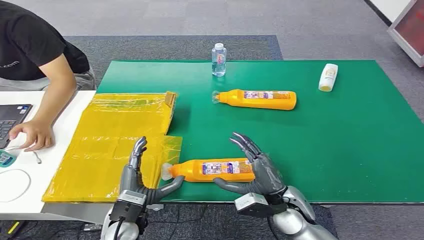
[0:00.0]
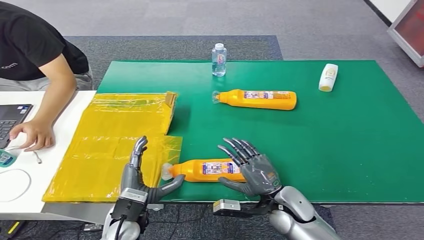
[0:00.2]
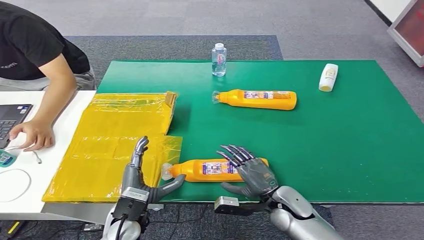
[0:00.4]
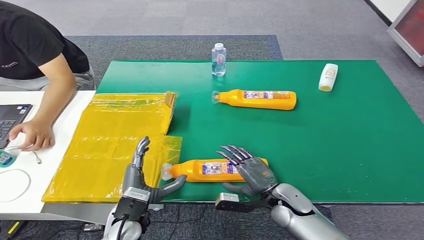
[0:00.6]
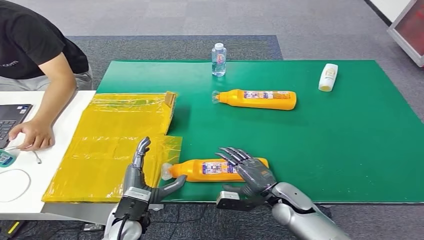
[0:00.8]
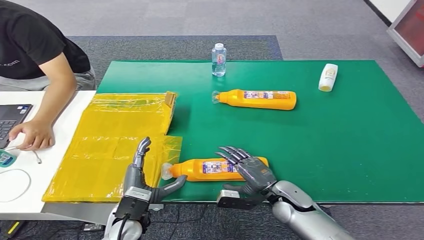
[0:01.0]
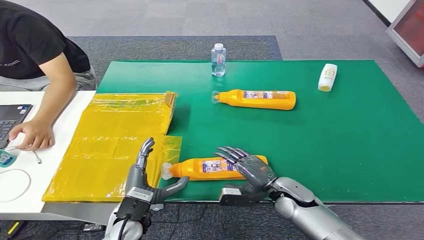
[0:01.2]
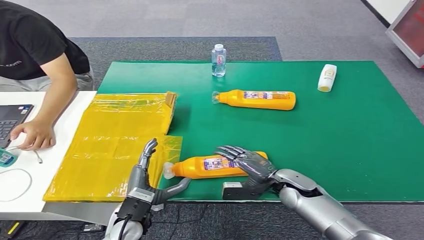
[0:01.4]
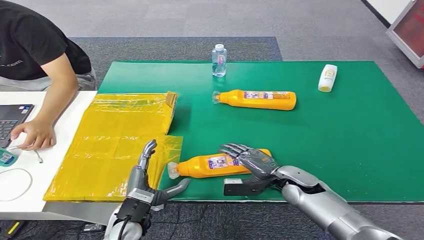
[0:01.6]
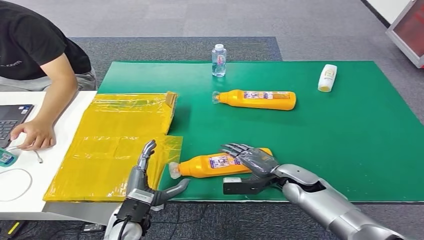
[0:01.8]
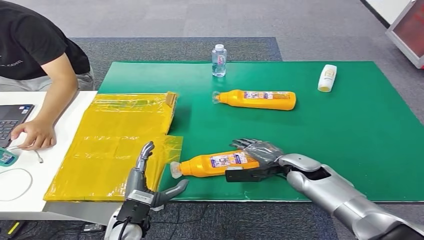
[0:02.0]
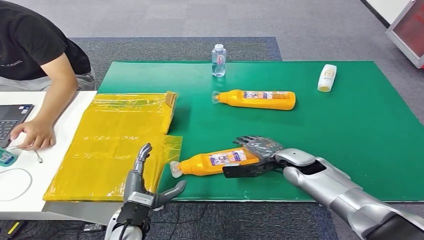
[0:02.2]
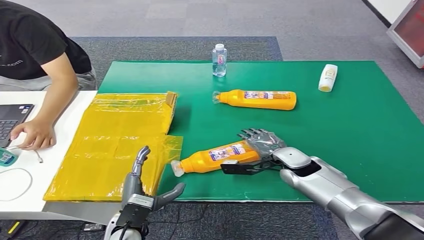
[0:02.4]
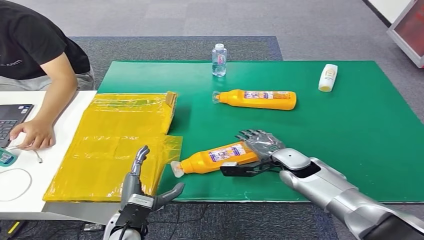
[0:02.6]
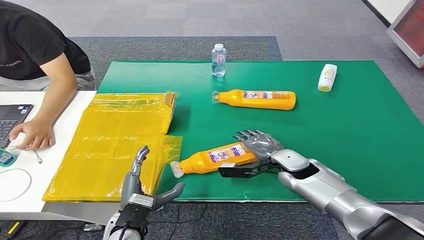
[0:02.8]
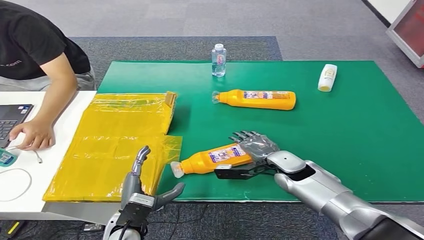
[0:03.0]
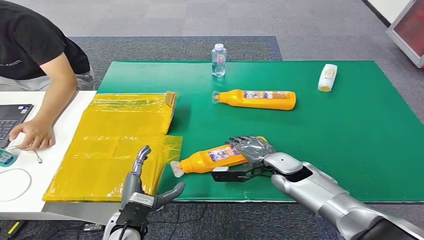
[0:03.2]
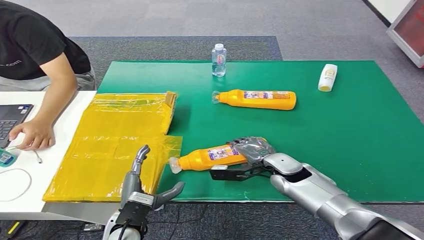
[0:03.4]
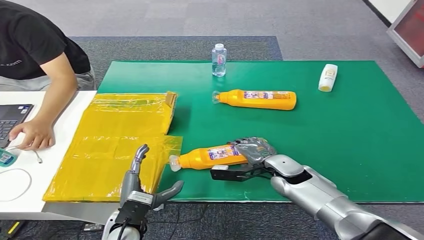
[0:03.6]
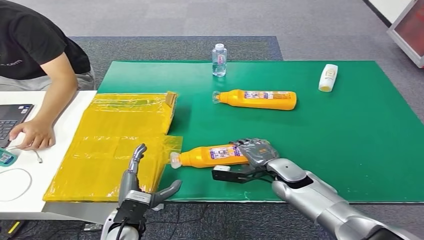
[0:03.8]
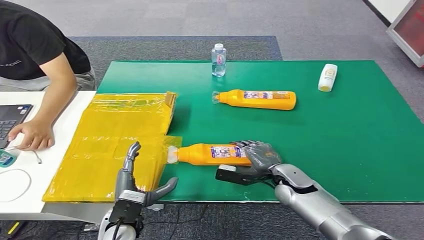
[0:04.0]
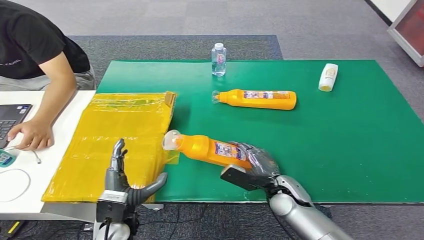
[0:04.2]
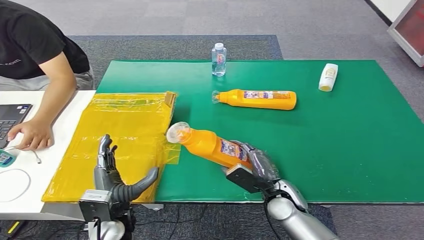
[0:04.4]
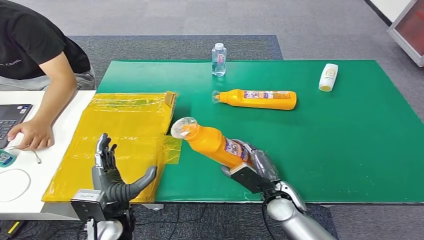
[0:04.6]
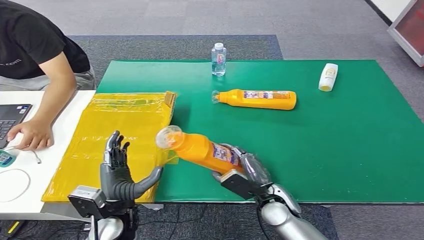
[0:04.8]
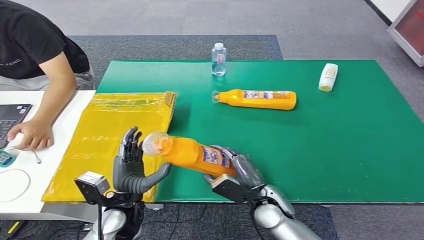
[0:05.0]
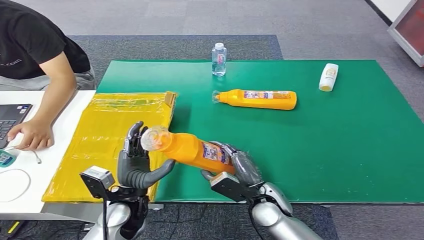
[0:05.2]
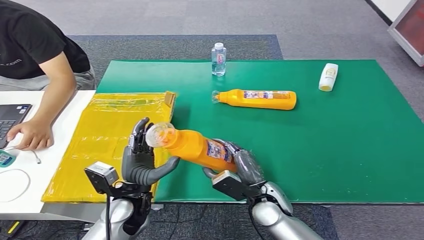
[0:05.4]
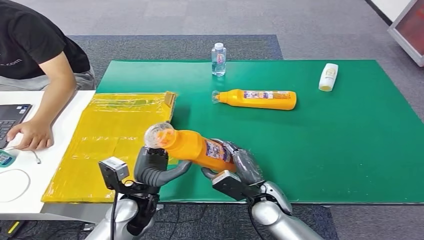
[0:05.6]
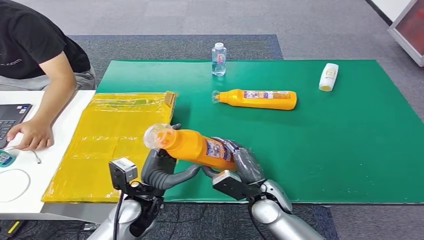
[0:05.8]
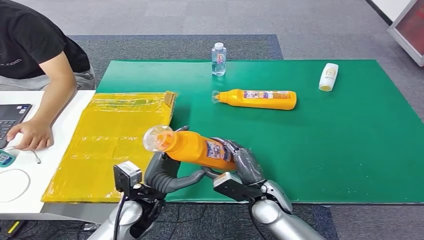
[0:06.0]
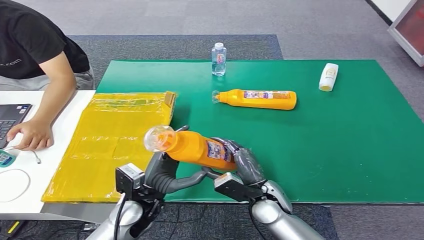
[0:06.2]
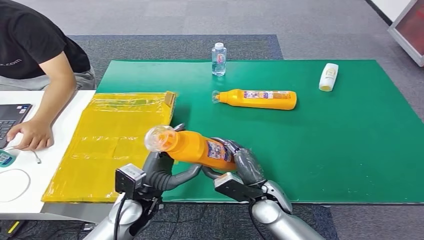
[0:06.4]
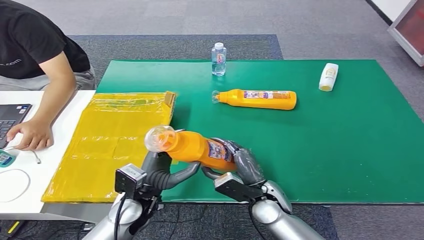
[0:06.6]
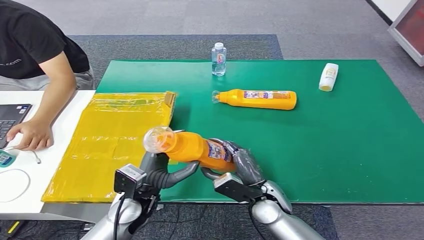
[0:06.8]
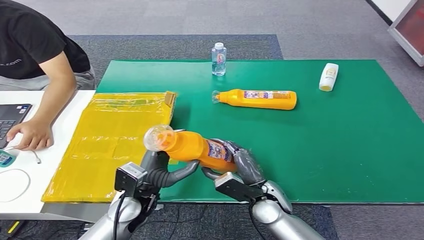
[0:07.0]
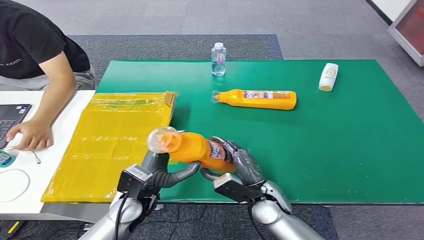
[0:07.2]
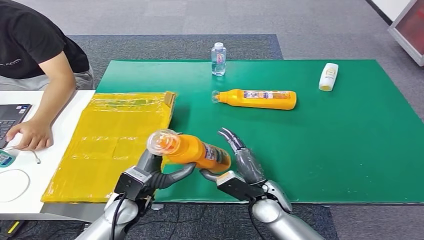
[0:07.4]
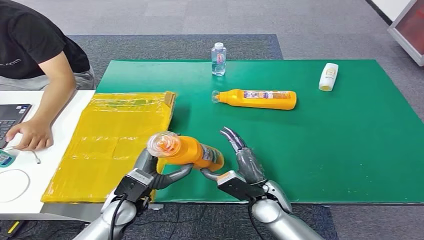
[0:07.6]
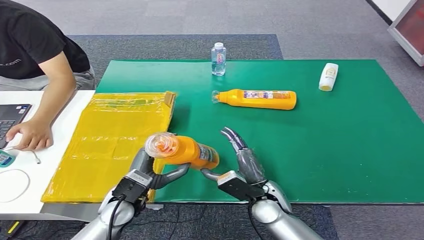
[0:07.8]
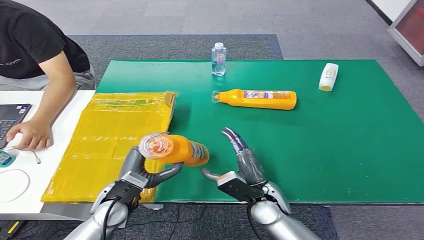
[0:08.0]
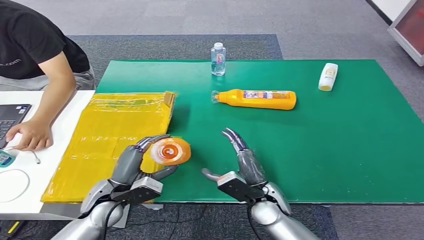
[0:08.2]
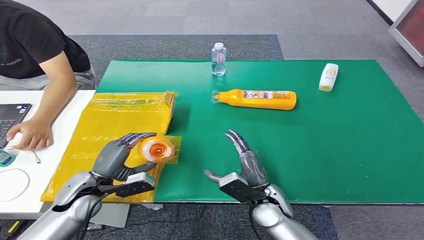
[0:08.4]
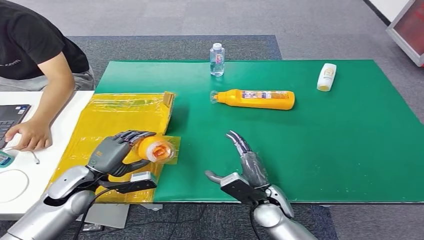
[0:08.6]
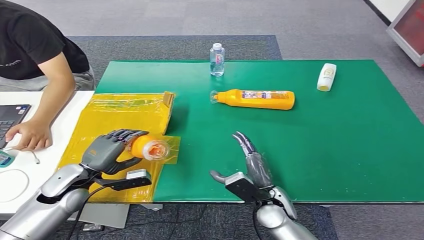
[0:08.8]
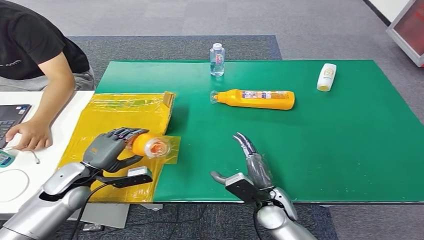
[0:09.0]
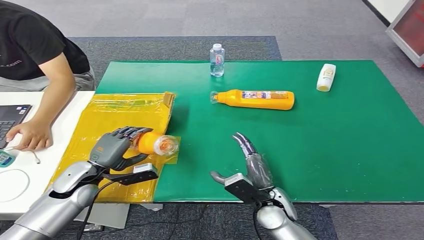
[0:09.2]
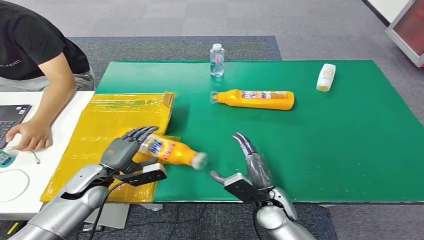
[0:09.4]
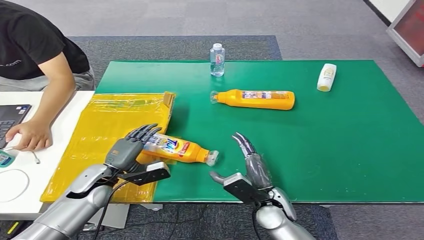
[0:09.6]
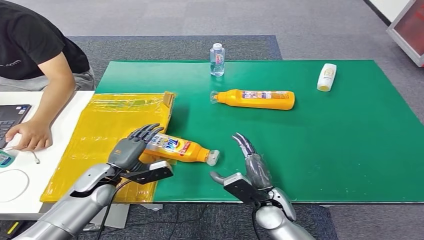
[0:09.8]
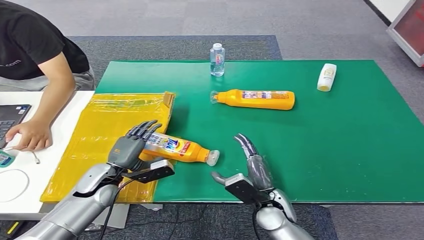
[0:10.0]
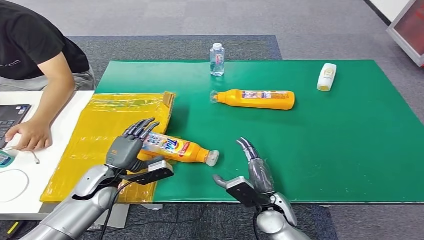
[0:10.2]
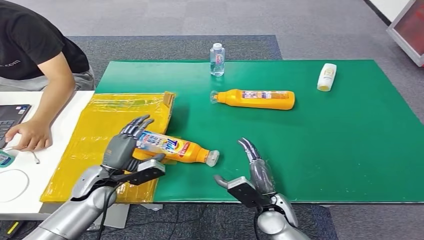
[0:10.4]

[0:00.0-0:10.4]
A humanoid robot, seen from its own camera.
Step, 0:00.0 to 0:04.6: Pick up the bottle from the table.
Step, 0:04.8 to 0:10.4: Turn the bottle to the front side.
0:01.4 to 0:03.0: The right hand shifts by some 5 cm.
0:03.0 to 0:04.4: The right hand heads backward, covering about 10 cm.
0:04.4 to 0:06.0: The left hand ends up some 5 cm from where it was.
0:07.4 to 0:09.0: The left hand heads to the left, covering approximately 15 cm.
0:09.0 to 0:10.4: The left hand travels to the right by approximately 5 cm.
